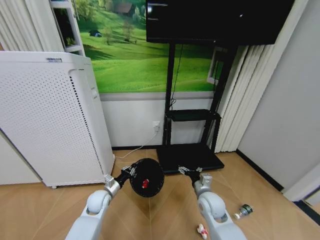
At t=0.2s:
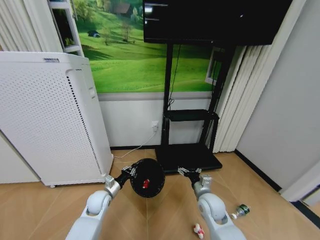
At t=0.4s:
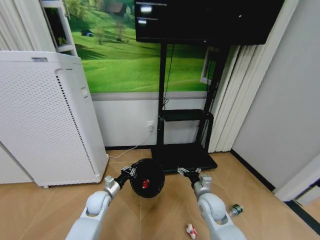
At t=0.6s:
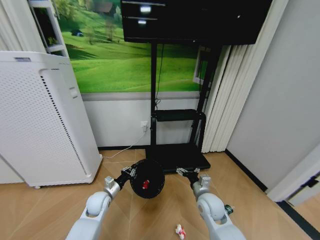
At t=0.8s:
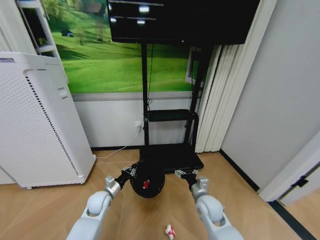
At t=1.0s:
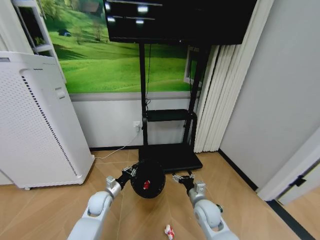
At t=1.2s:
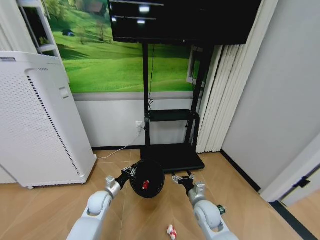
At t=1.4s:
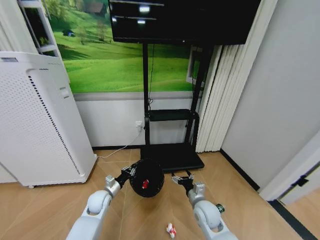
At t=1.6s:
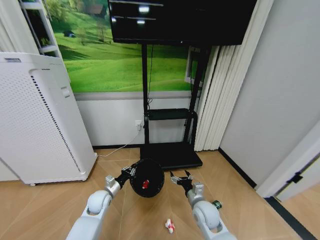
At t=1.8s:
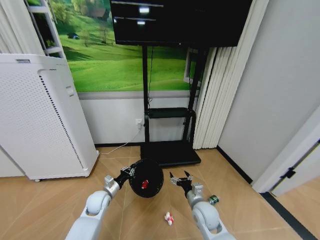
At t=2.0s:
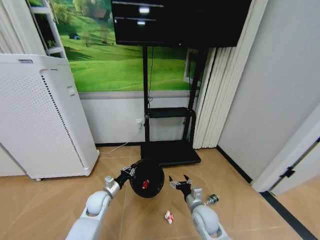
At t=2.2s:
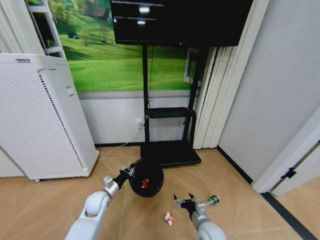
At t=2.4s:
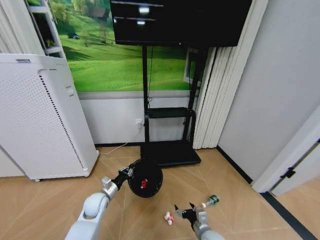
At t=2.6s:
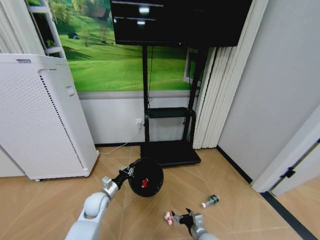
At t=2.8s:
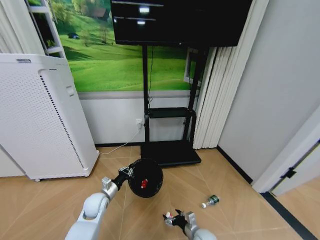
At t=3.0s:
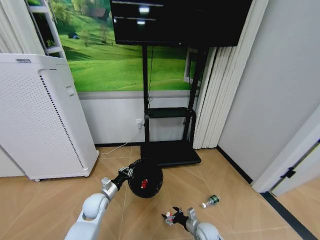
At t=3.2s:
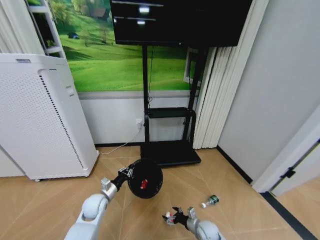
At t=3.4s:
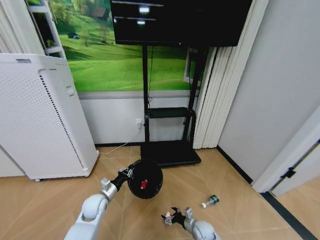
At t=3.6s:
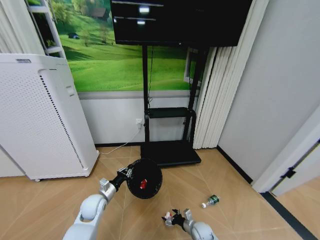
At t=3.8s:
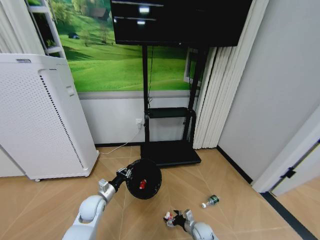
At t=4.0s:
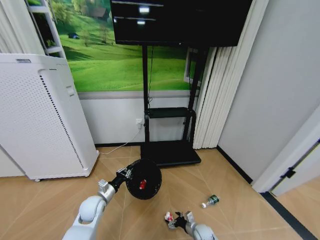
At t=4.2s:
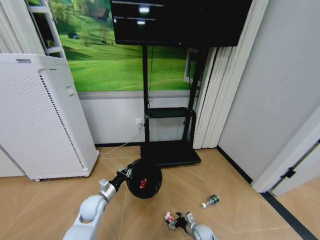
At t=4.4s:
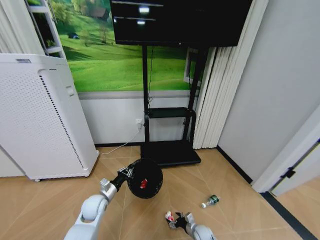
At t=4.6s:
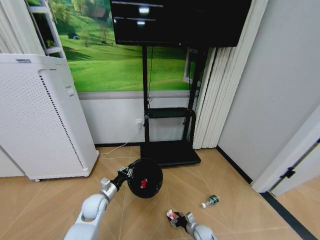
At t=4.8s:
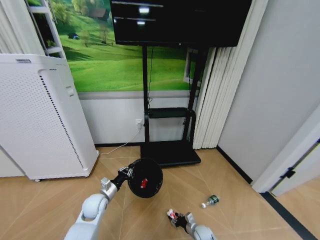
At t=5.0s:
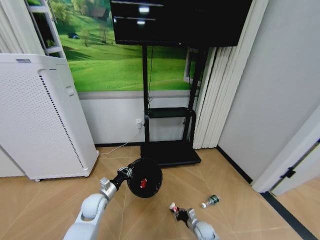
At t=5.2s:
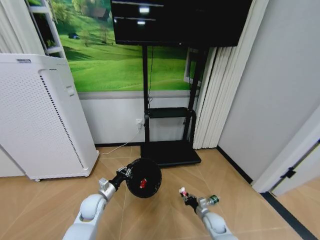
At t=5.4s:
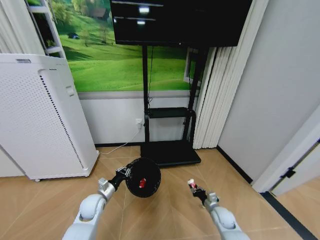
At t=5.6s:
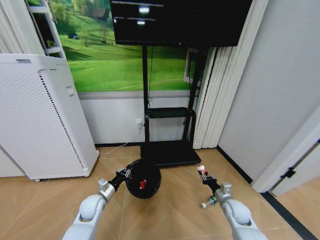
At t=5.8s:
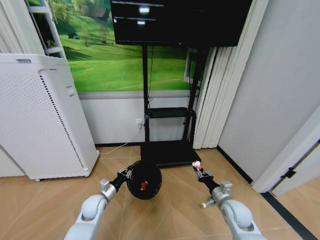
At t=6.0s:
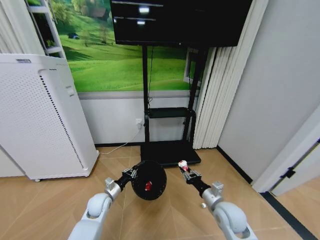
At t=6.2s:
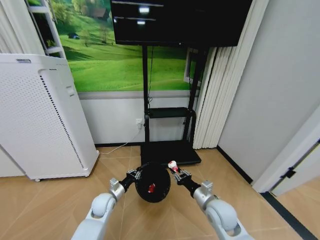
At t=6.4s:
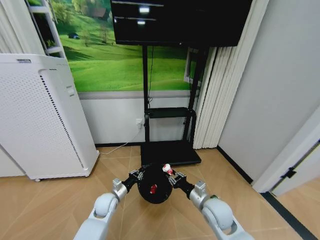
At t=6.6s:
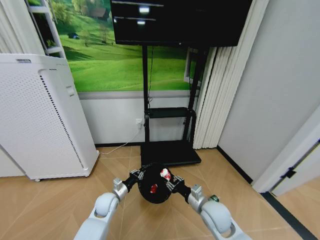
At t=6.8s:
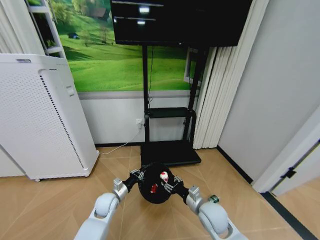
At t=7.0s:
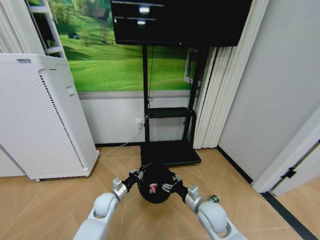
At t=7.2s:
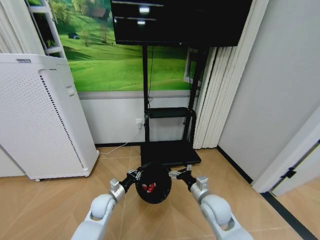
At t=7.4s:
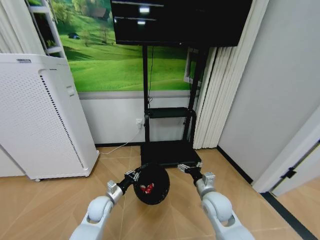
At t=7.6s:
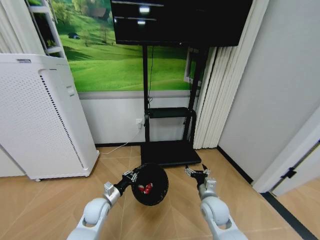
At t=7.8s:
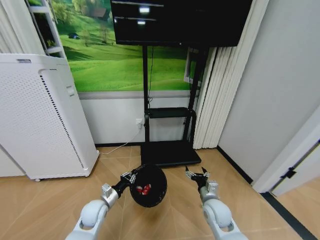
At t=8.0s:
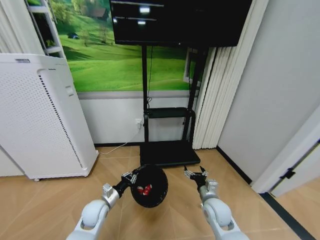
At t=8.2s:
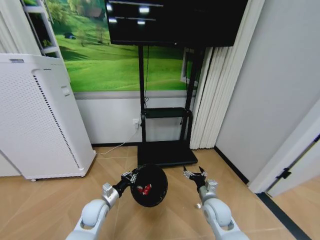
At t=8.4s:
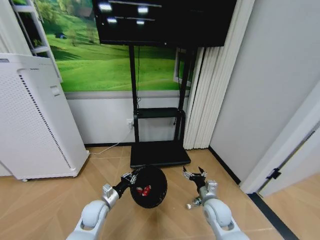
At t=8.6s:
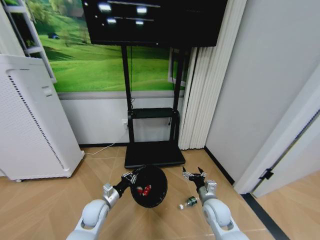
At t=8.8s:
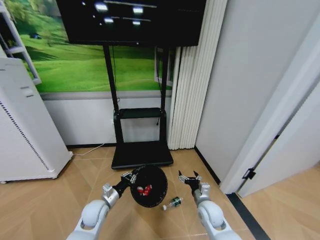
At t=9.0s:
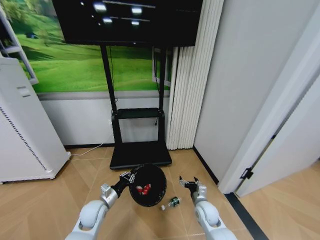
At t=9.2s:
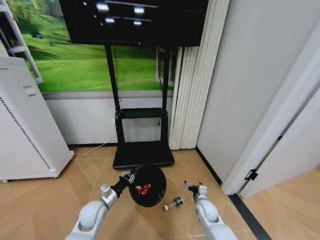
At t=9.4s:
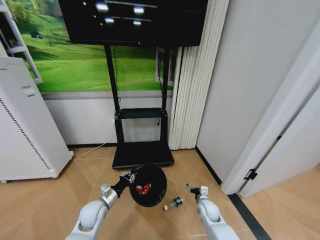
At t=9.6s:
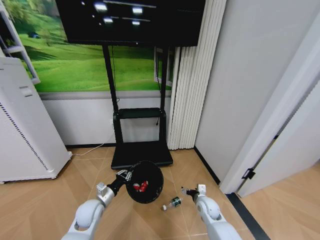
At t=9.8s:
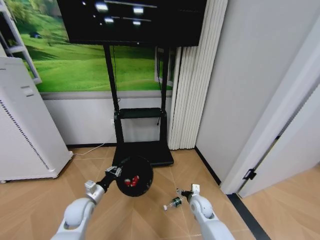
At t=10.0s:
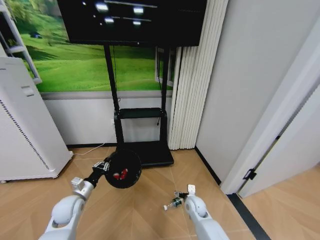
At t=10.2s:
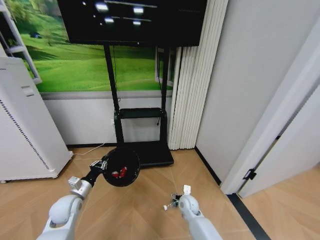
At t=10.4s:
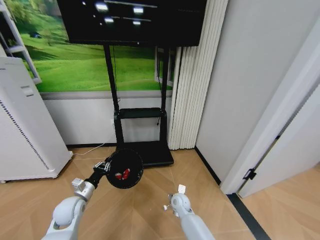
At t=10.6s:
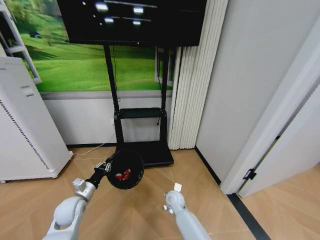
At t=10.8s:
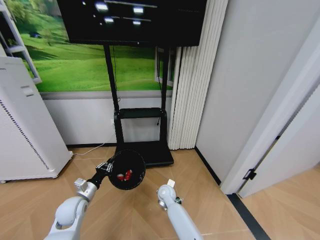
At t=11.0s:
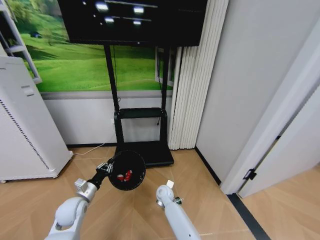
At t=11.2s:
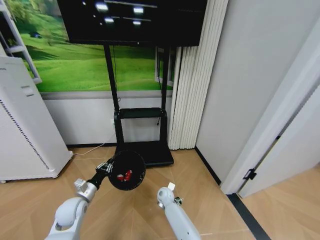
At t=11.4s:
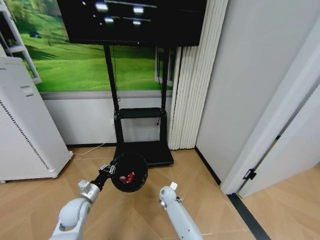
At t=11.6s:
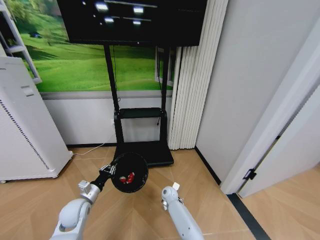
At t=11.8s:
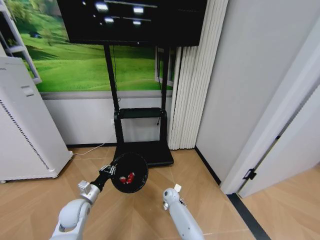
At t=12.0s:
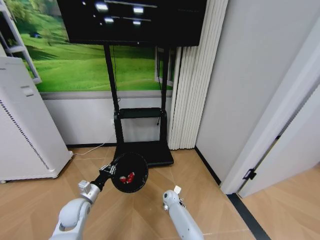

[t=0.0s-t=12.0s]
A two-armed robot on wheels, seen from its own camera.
Task of the whole recording: Pick up the trash bin and place the garbage on the floor into it.
t=1.6s to t=3.0s: The right gripper heads downward, covering approximately 15 cm.
t=3.0s to t=4.4s: The right gripper shifts some 10 cm downward.
t=4.4s to t=6.0s: The right gripper travels upward by some 30 cm, and closes its fingers.
t=6.0s to t=7.6s: The right gripper opens up.
t=7.6s to t=9.0s: The right gripper travels downward by some 5 cm.
t=9.0s to t=10.4s: The right gripper is displaced to the left and forward by about 10 cm, while the left gripper shifts approximately 10 cm to the left.
t=10.4s to t=12.0s: The right gripper travels downward and forward by some 10 cm.

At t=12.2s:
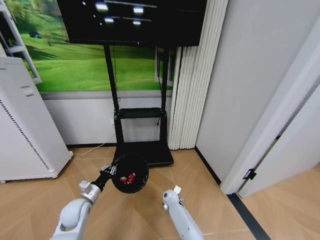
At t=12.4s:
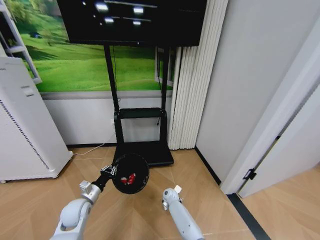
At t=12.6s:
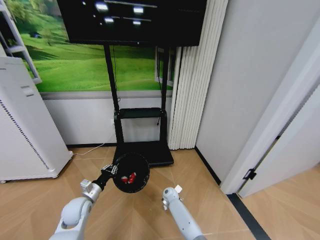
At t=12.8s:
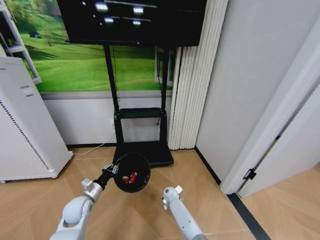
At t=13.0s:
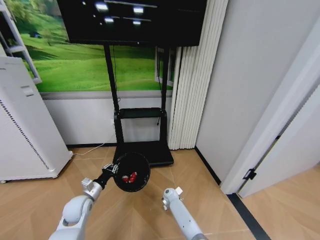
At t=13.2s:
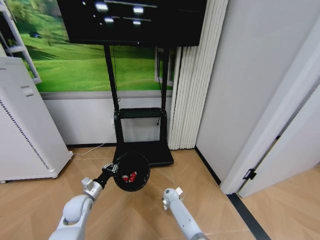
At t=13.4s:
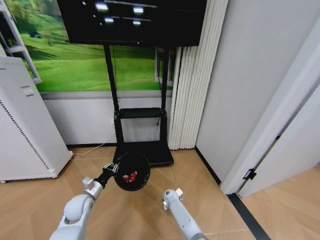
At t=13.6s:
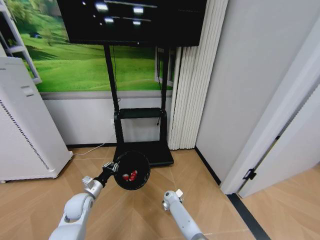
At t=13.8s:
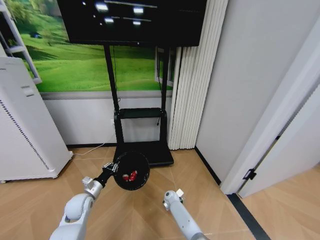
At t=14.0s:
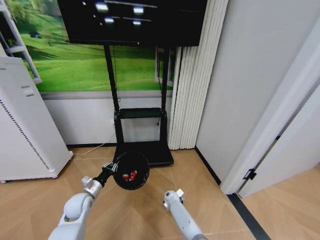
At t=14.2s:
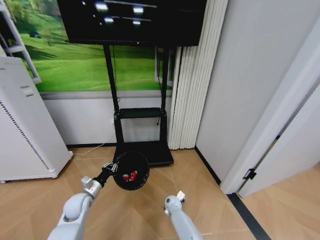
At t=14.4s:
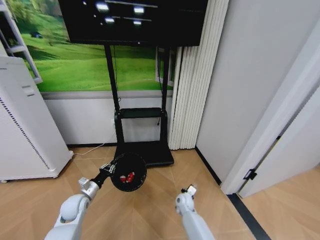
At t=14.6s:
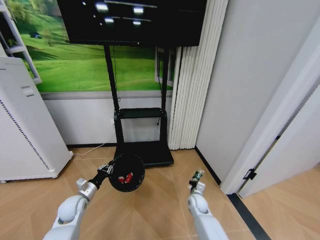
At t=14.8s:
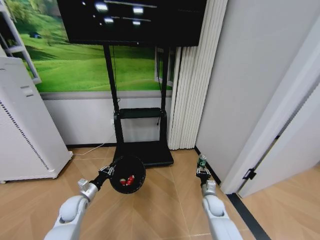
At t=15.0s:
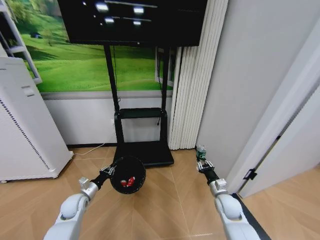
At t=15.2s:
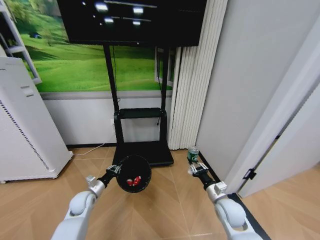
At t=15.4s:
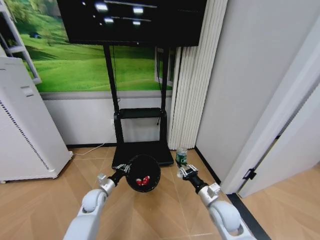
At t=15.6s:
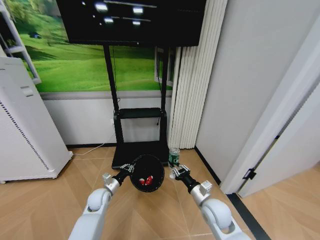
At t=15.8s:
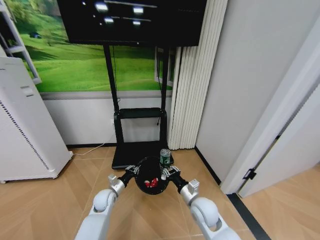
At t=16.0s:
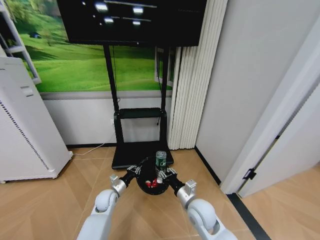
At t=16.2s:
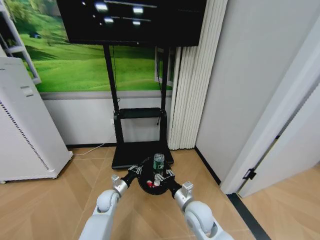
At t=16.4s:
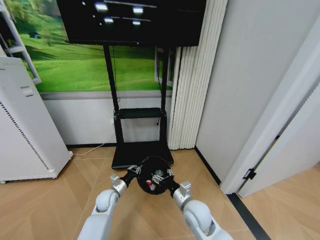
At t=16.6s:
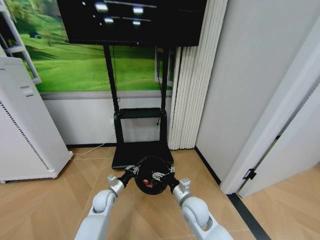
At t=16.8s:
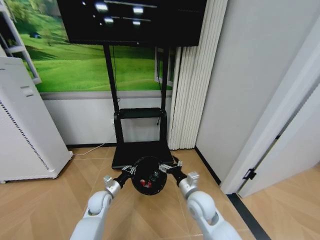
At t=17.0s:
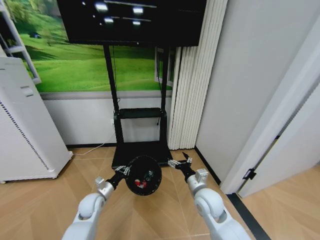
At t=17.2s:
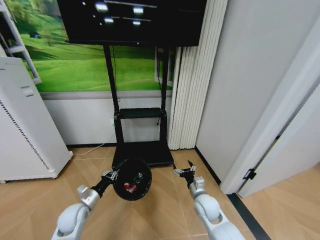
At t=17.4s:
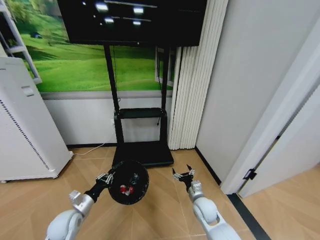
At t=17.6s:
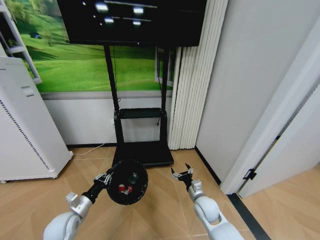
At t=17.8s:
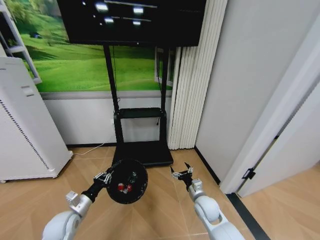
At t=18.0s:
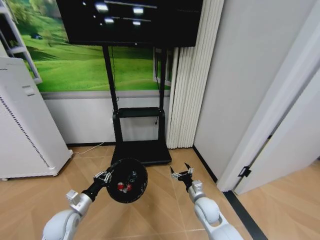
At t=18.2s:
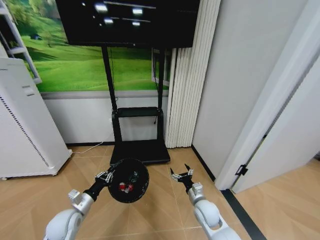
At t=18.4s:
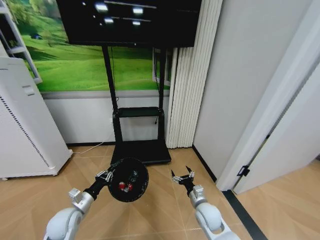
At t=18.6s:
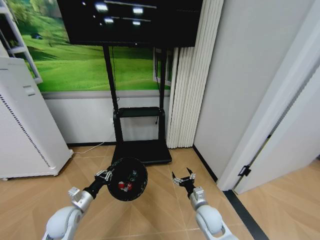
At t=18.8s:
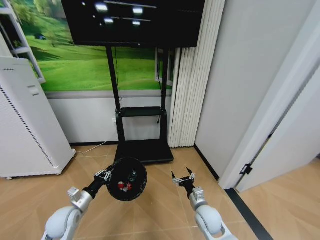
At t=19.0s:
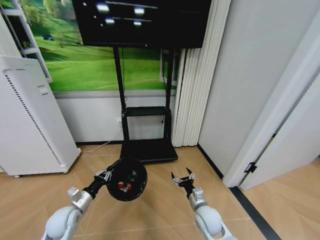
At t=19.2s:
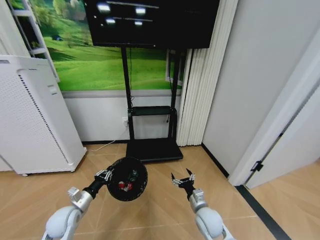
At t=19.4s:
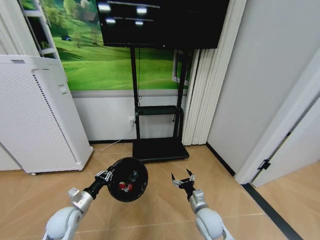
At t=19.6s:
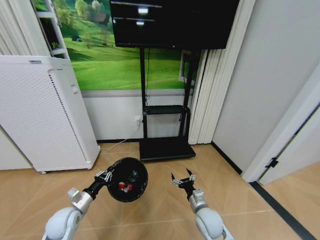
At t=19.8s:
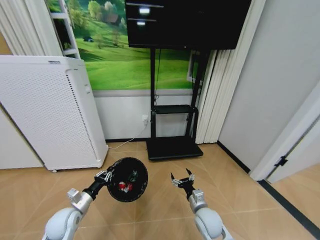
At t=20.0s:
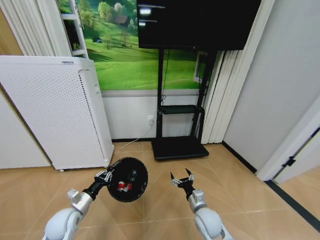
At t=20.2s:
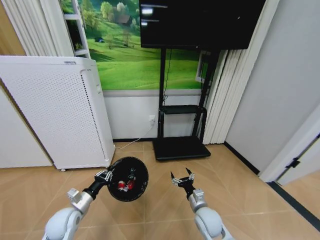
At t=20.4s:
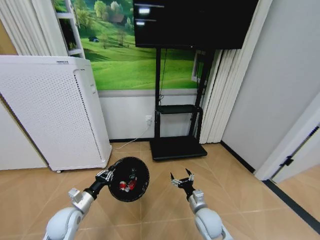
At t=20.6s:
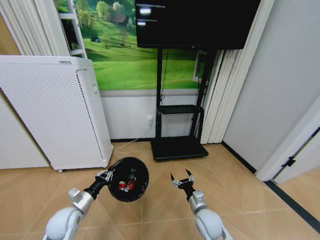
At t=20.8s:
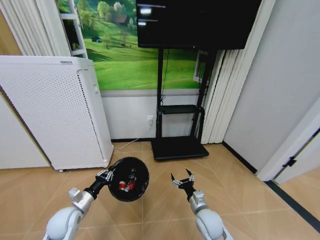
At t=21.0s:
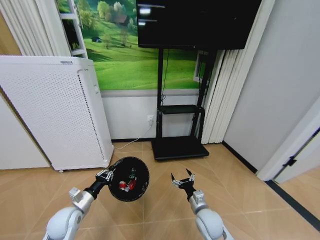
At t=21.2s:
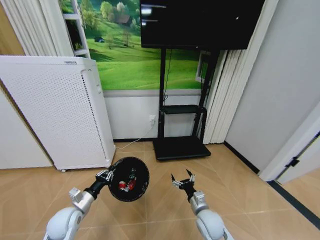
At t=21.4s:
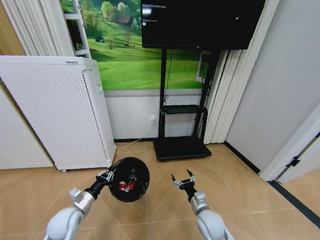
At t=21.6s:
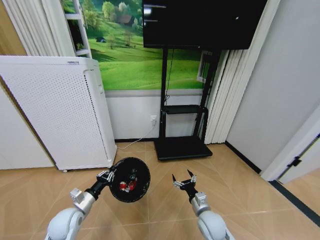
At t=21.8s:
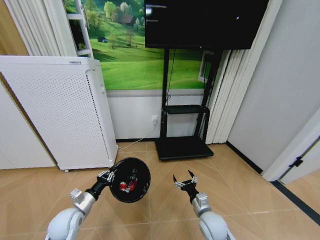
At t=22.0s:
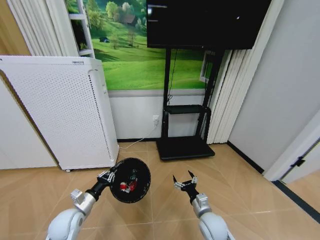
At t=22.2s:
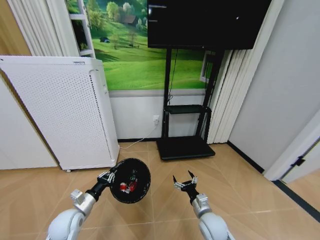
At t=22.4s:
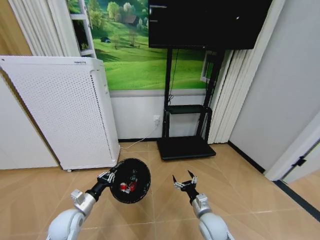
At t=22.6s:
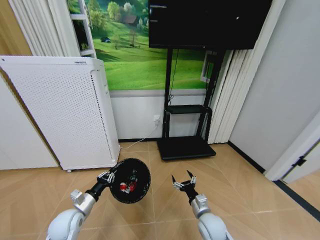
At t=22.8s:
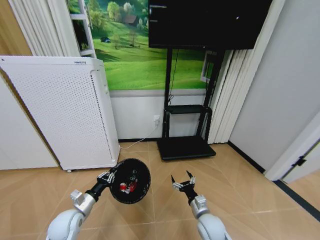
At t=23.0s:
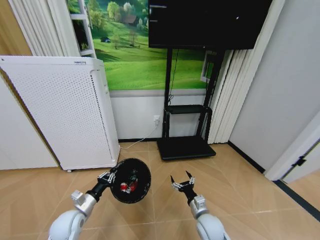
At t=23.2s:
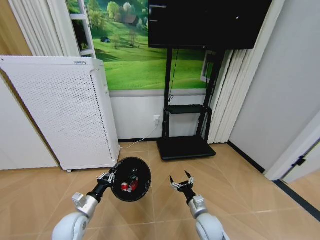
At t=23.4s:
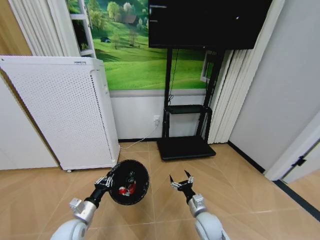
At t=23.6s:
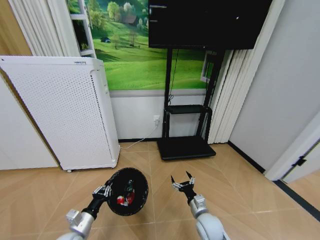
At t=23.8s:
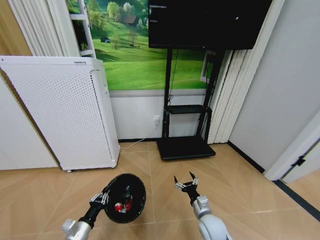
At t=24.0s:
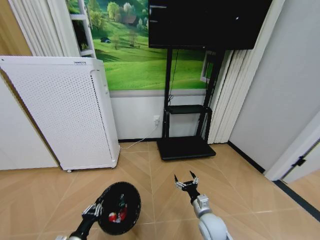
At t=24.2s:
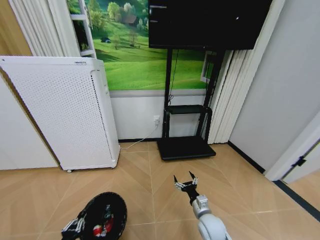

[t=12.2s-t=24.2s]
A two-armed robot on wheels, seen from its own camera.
Task of the whole recording: Pick up the trash bin and place the garbage on the floor into it.
t=12.2s to t=13.8s: The right gripper closes up.
t=13.8s to t=15.2s: The right gripper moves upward, to the right and backward, roughly 30 cm.
t=15.2s to t=16.6s: The left gripper travels to the right by roughly 10 cm. Meanwhile the right gripper goes roughly 15 cm to the left, and opens.
t=16.6s to t=18.2s: The right gripper is displaced to the right and downward by approximately 10 cm, while the left gripper heads backward, to the left and upward, covering approximately 15 cm.
t=21.2s to t=22.6s: Both grippers stay about where they are.
t=22.6s to t=24.2s: The left gripper shifts roughly 20 cm backward and downward.
